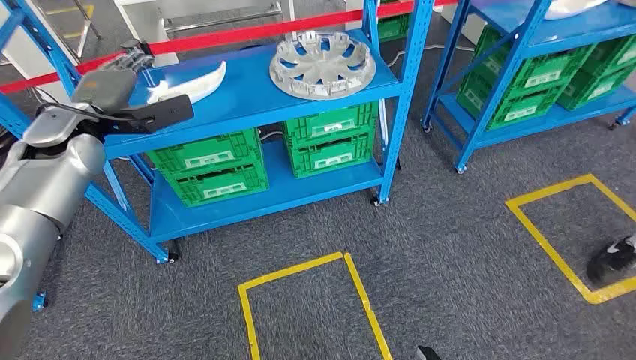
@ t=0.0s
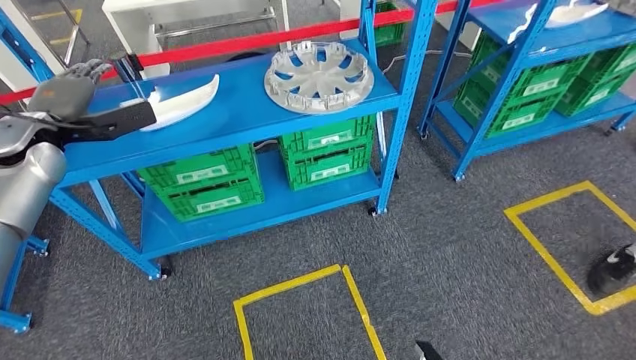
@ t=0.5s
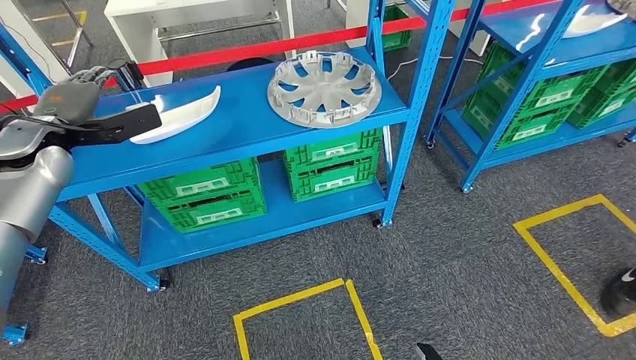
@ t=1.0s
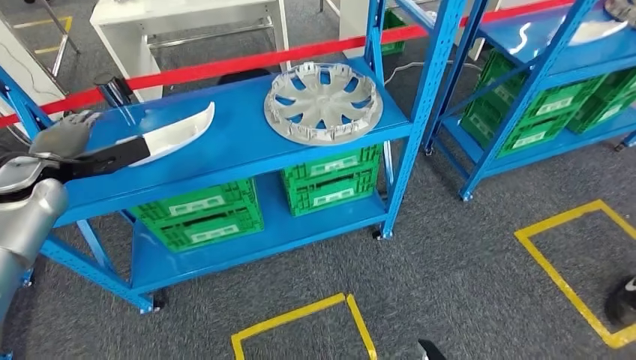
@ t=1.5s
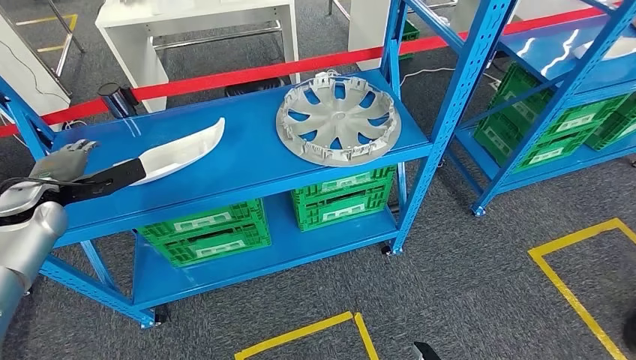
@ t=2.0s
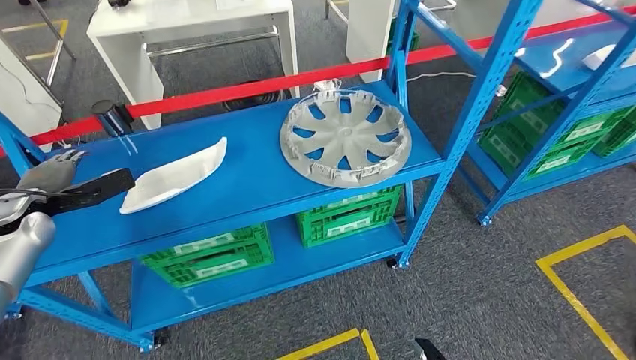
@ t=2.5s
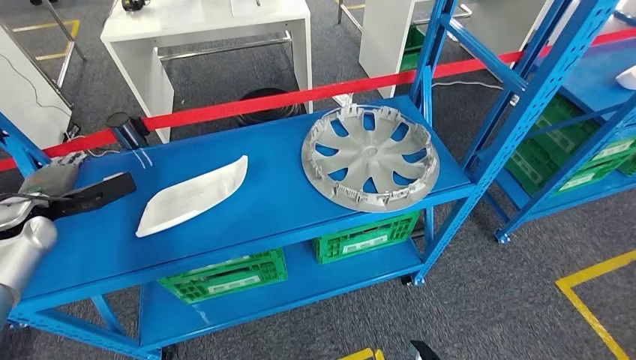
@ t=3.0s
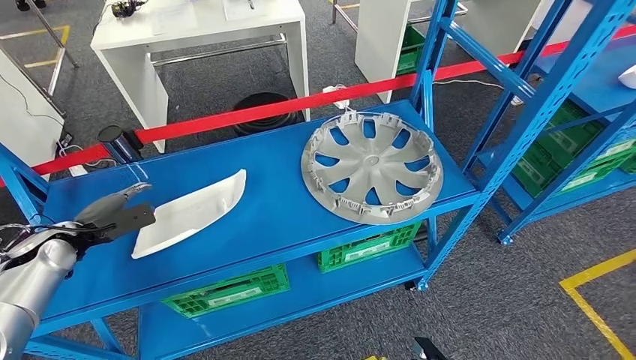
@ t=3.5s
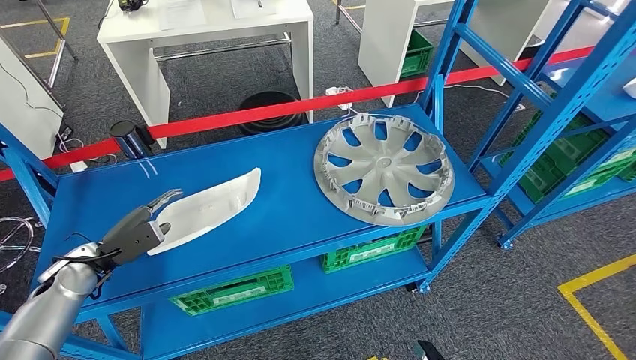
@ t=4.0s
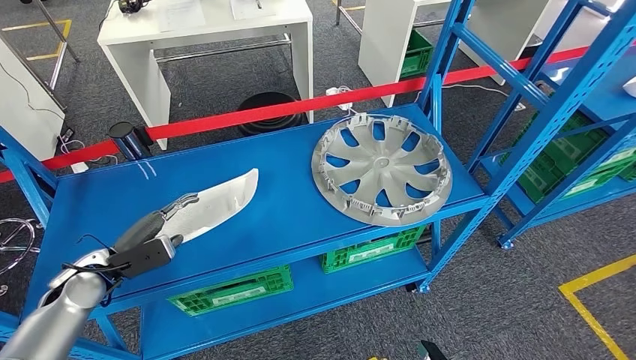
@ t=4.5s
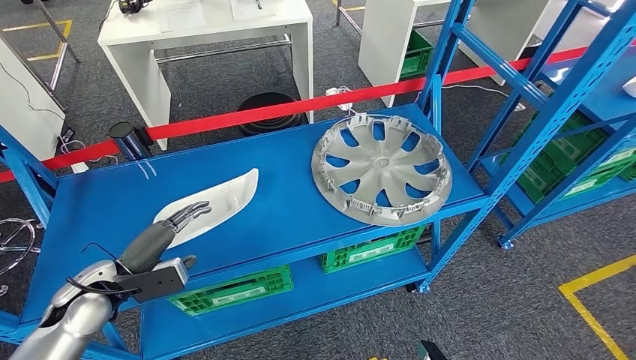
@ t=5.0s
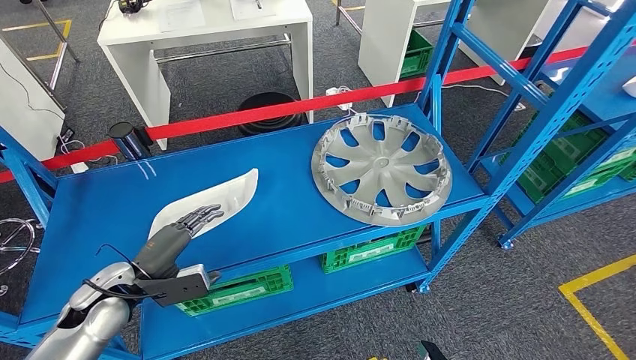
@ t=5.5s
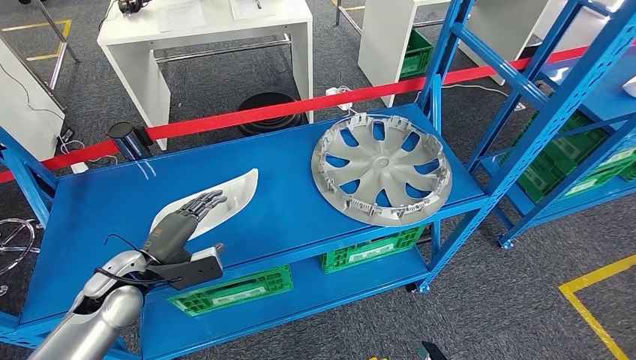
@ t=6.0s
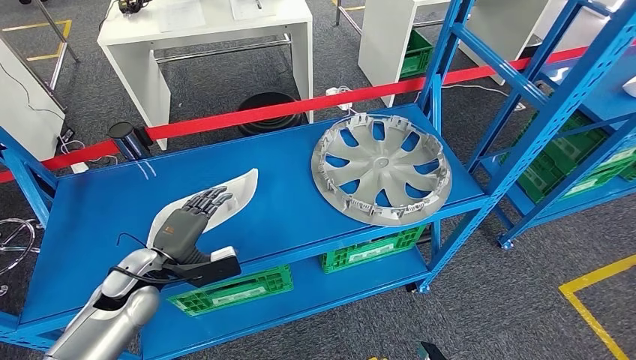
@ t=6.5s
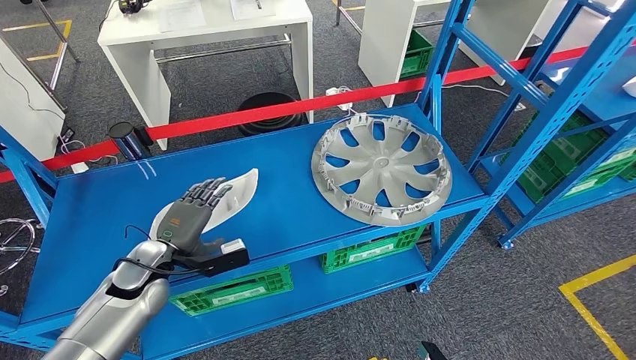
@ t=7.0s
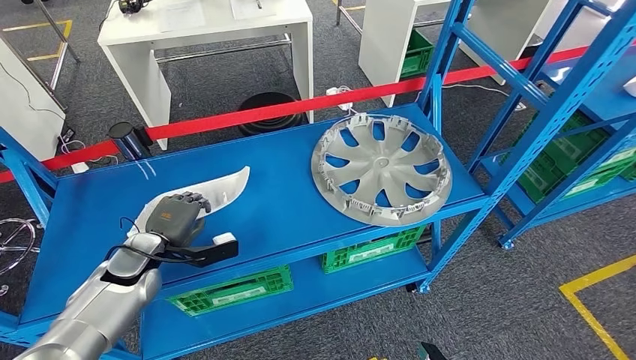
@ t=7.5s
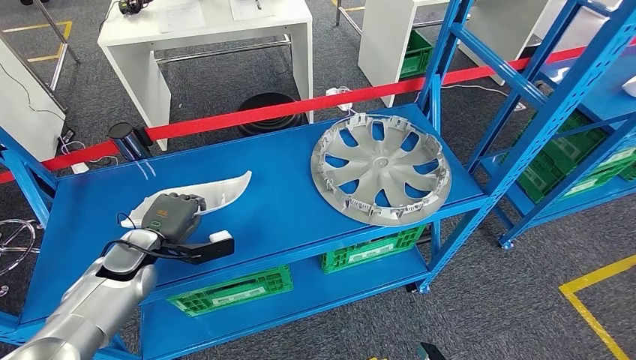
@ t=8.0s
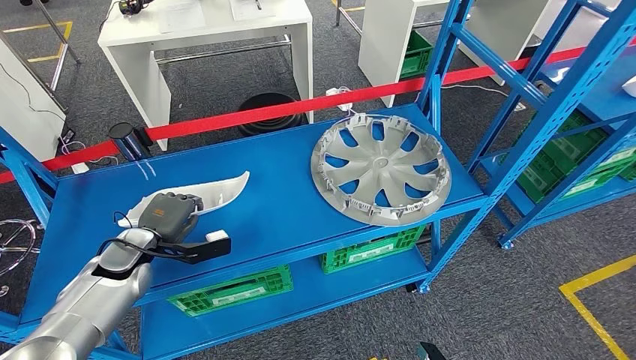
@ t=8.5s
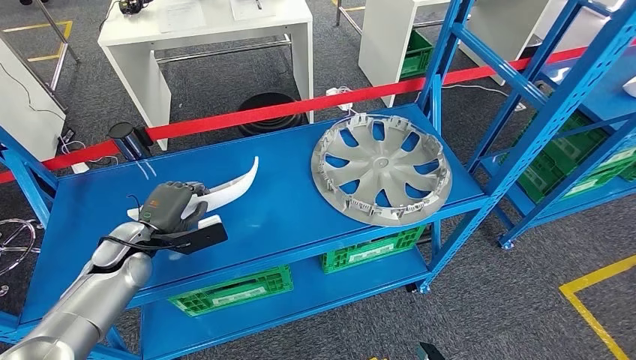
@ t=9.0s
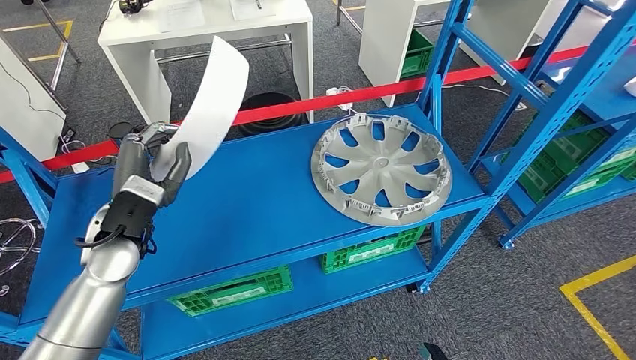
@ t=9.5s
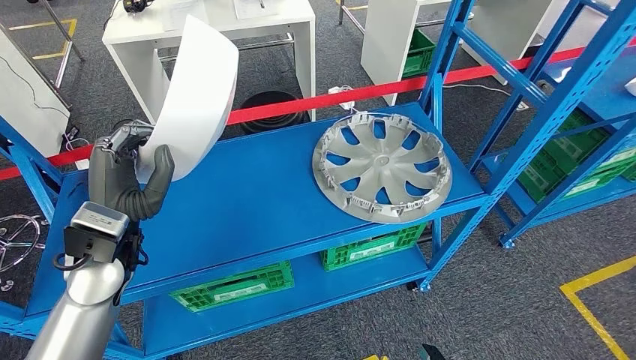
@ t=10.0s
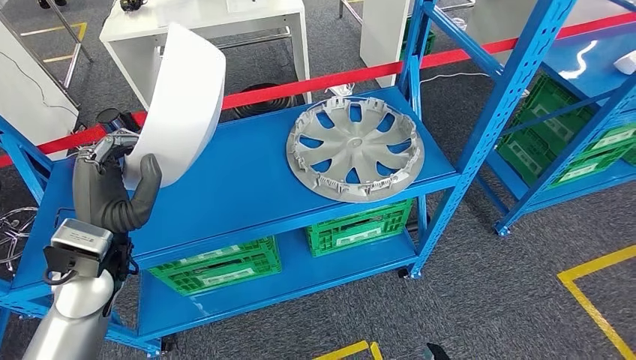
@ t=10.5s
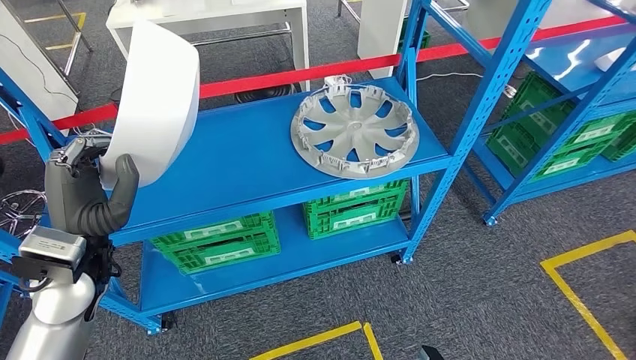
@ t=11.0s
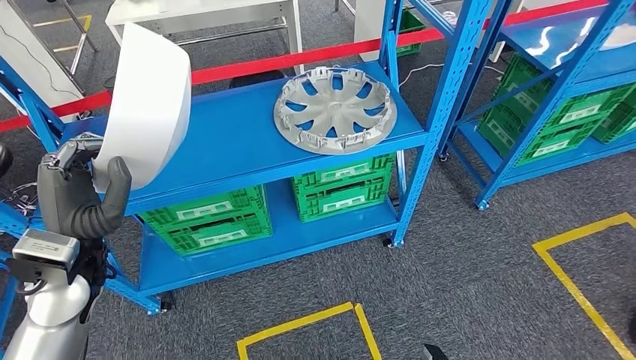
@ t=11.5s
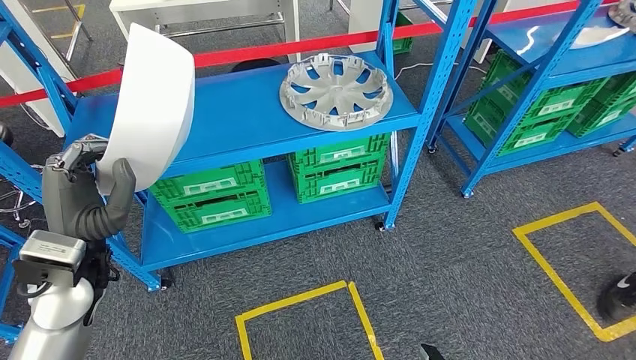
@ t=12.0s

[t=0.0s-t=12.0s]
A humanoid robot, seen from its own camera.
Step, t=0.0s to t=10.0s: Pick up the small parts from the shelf.
t=4.0s to t=6.0s: The left hand goes some 10 cm to the right.

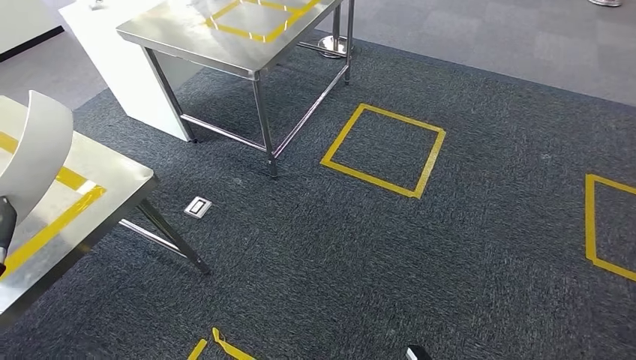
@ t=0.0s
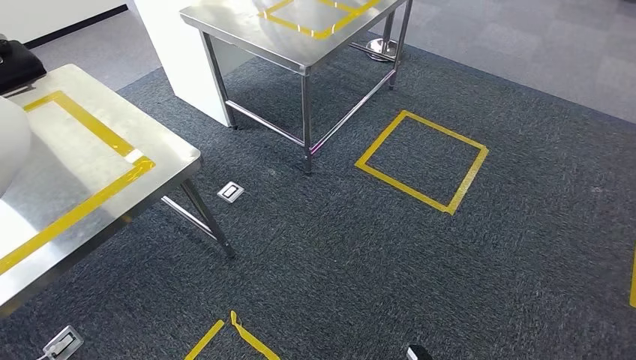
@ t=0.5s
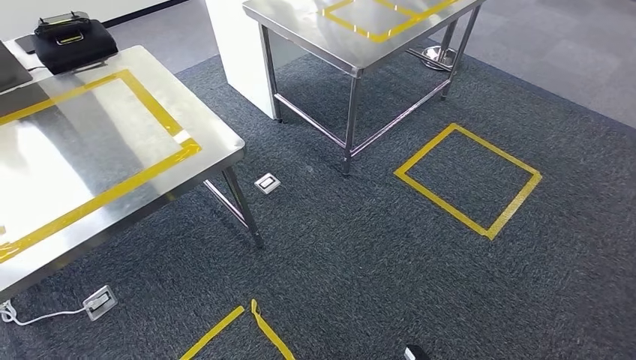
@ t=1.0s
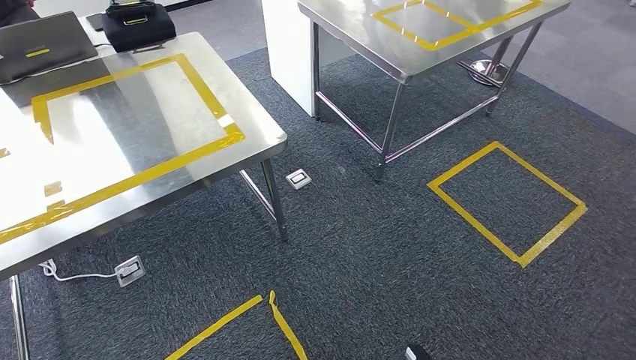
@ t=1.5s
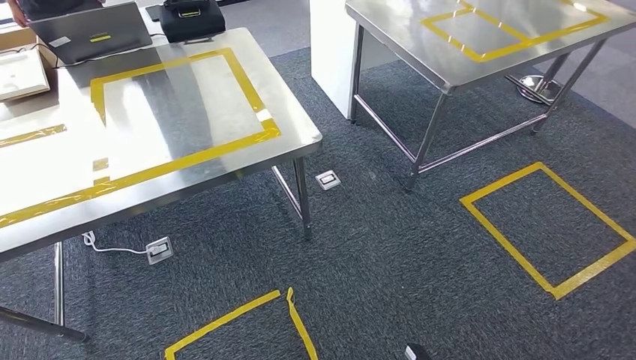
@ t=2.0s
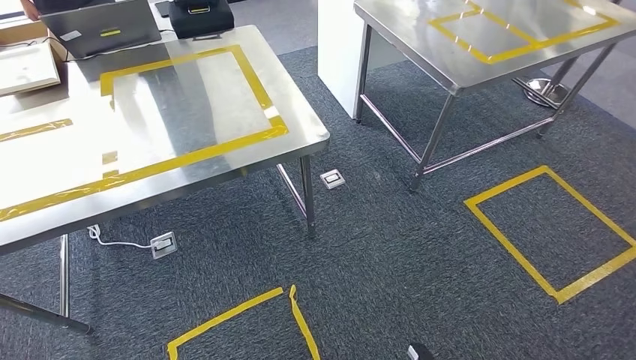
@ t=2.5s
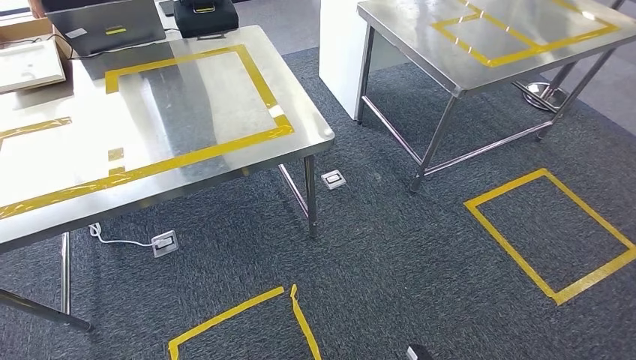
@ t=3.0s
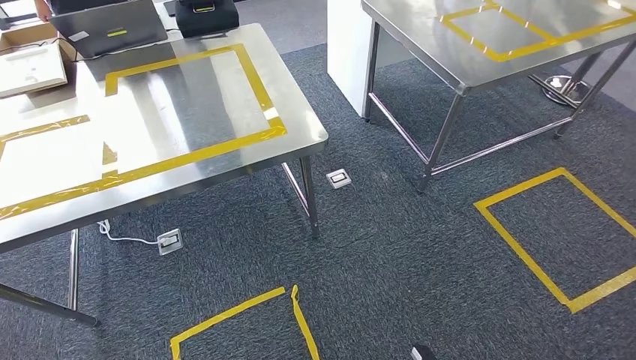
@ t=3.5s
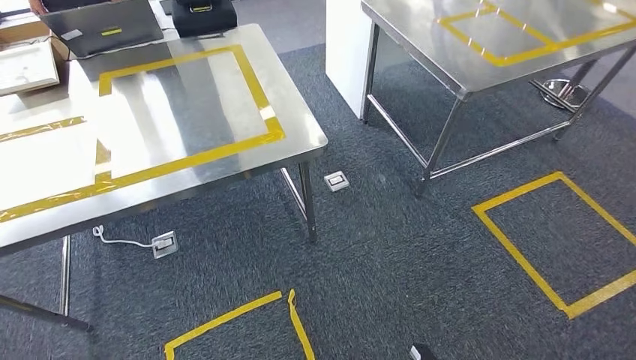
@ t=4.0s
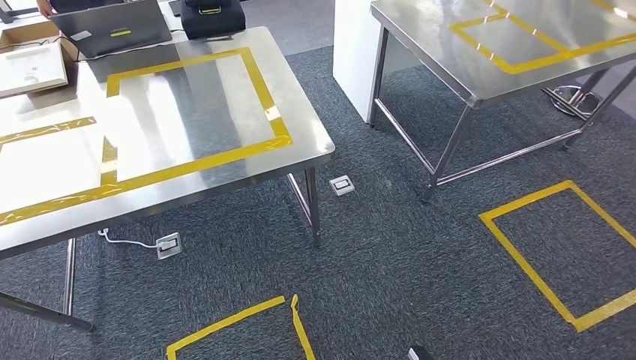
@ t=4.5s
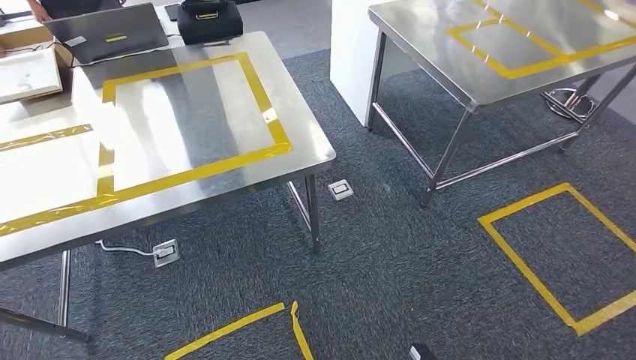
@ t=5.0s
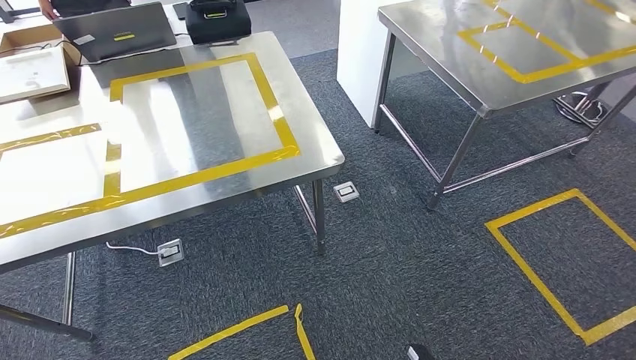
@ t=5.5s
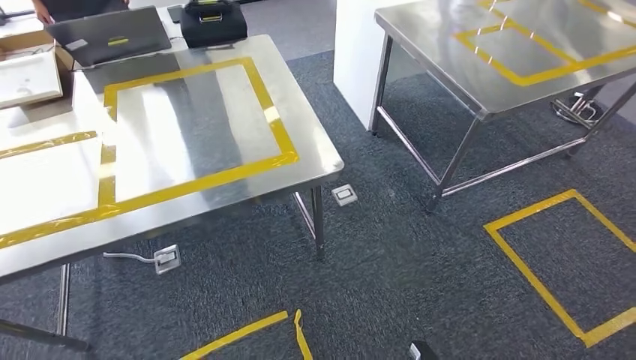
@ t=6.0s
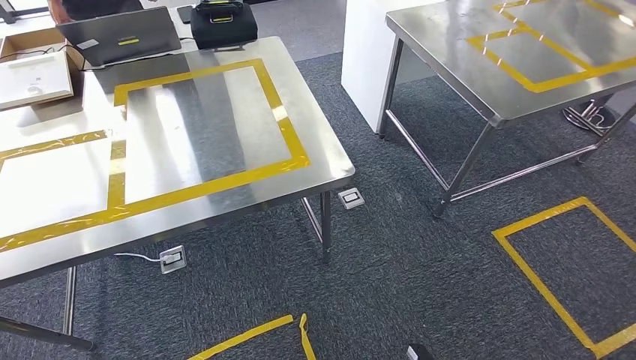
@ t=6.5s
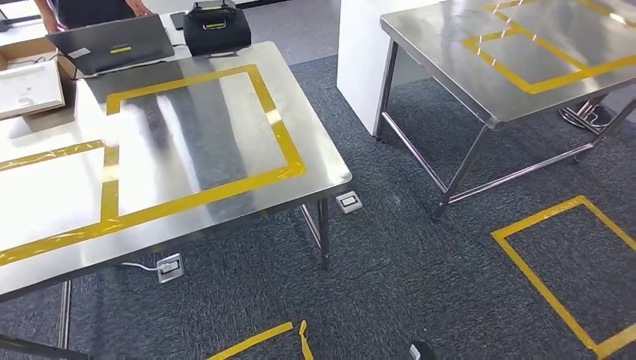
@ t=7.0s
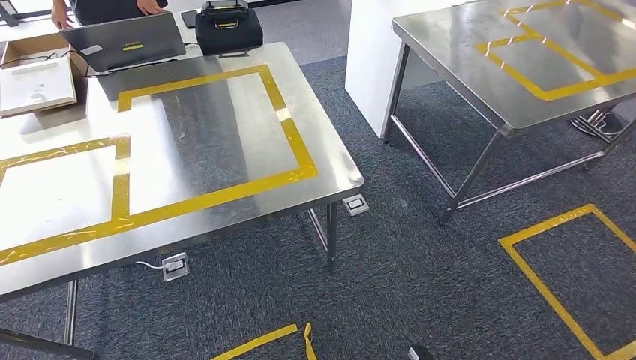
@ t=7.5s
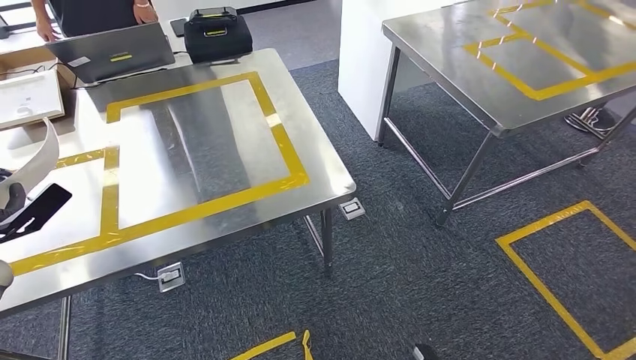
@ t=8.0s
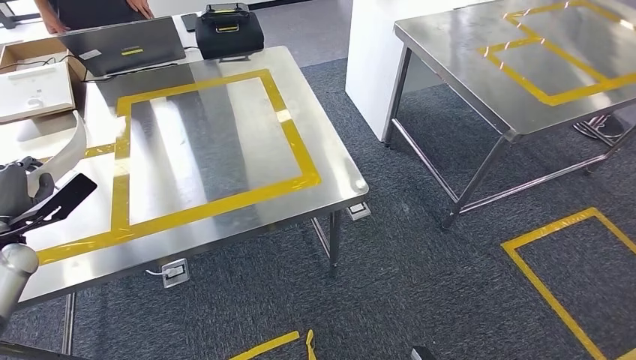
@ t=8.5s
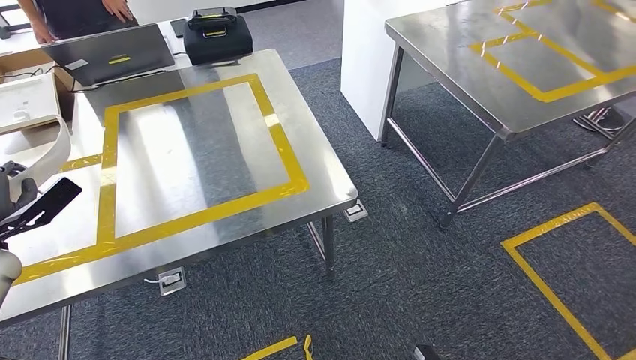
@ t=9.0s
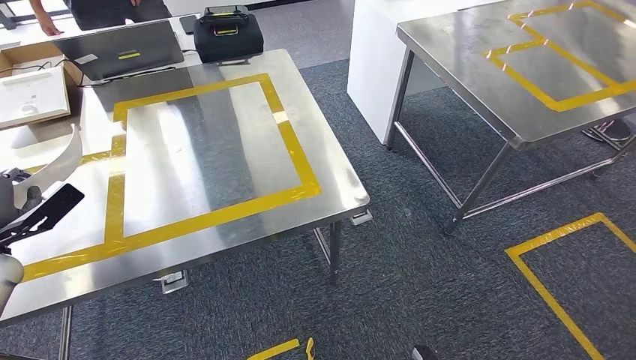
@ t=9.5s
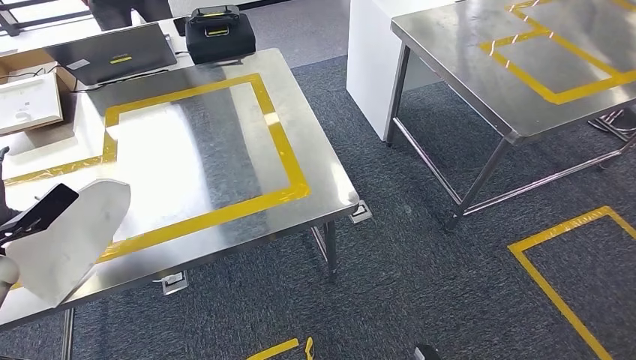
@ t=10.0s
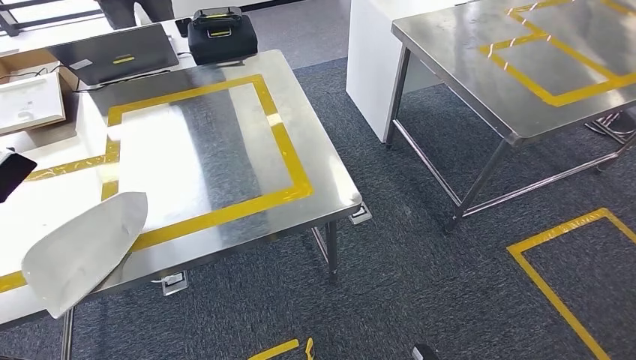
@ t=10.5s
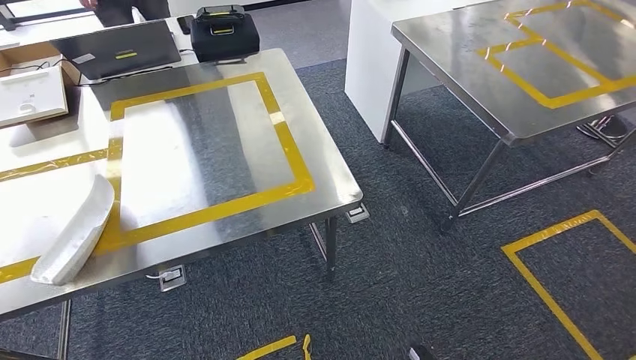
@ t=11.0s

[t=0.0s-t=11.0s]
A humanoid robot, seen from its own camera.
Step, t=0.0s to t=3.5s: Move the small parts to the workbench.
Step, t=4.0s to t=10.5s: Insert the small parts into the corresponding holes on the workbench.
